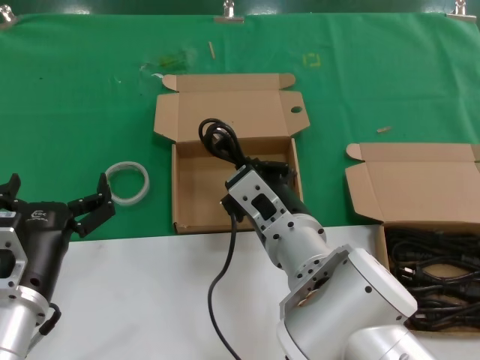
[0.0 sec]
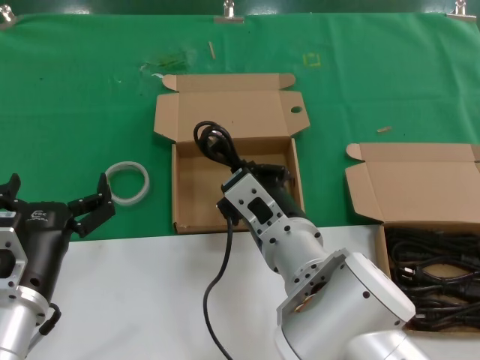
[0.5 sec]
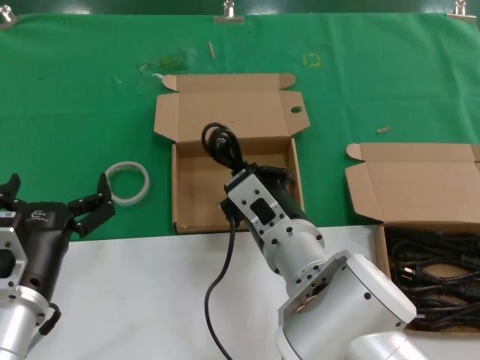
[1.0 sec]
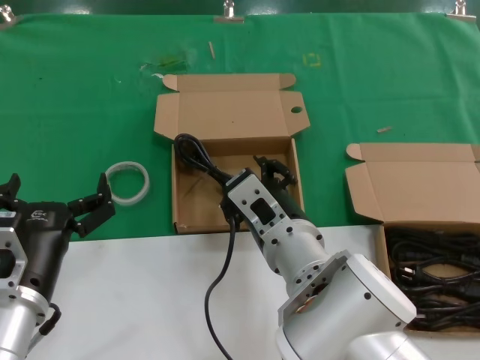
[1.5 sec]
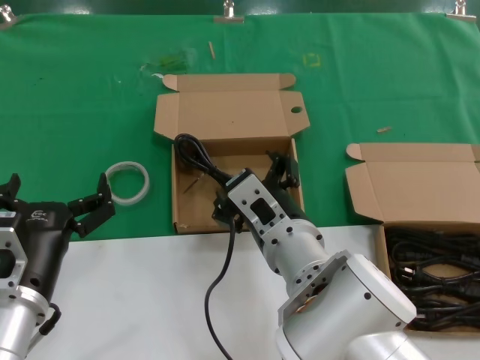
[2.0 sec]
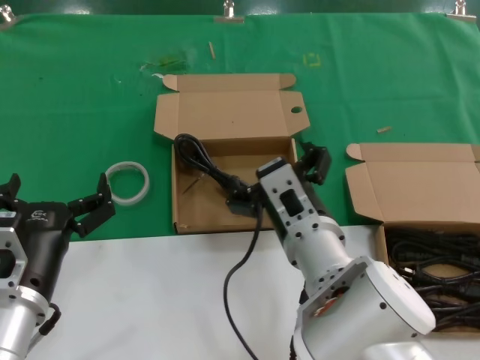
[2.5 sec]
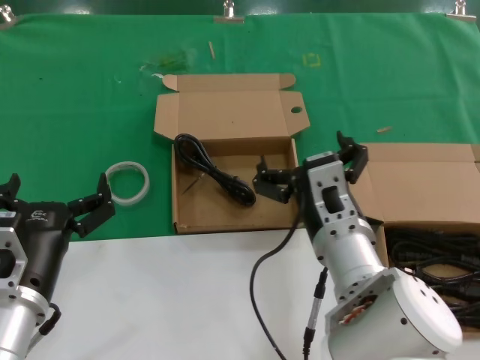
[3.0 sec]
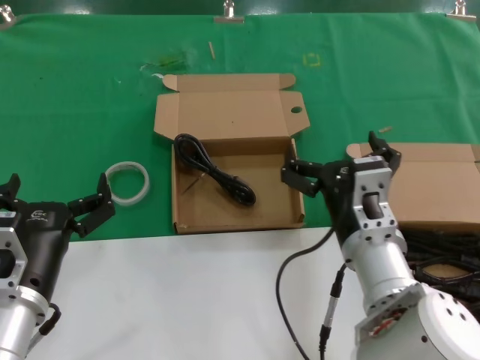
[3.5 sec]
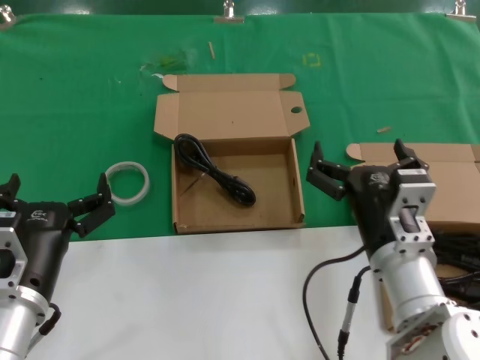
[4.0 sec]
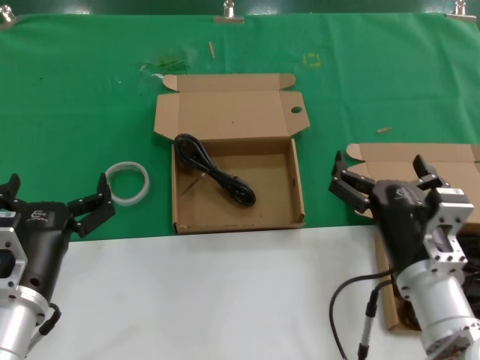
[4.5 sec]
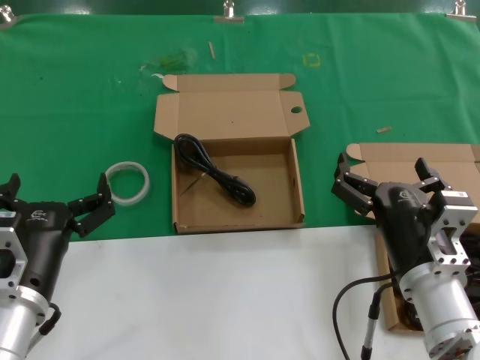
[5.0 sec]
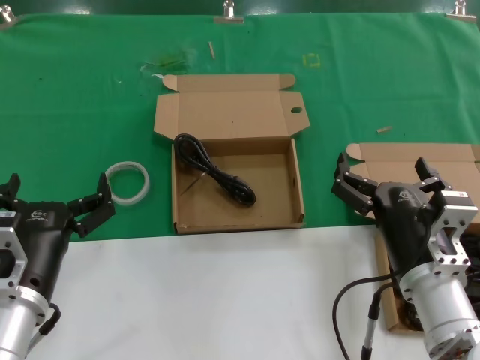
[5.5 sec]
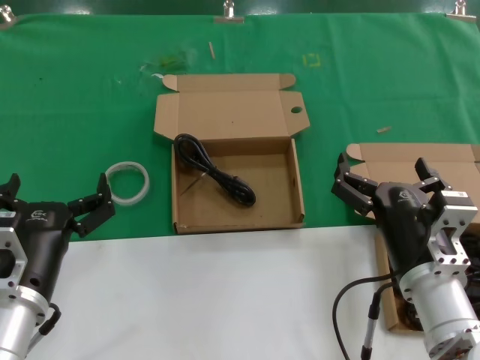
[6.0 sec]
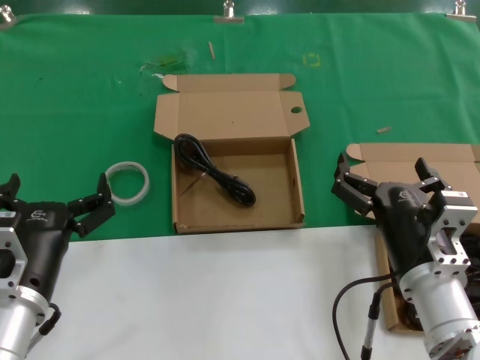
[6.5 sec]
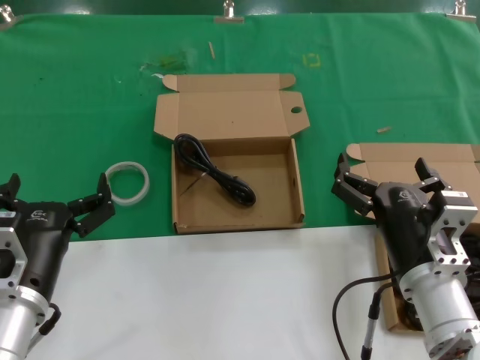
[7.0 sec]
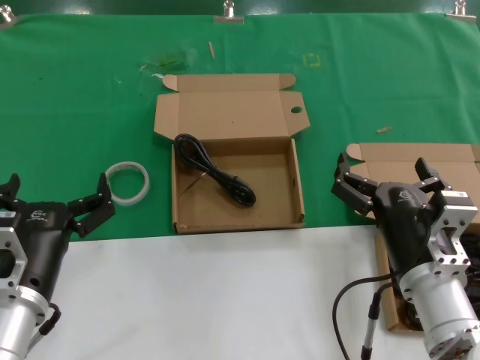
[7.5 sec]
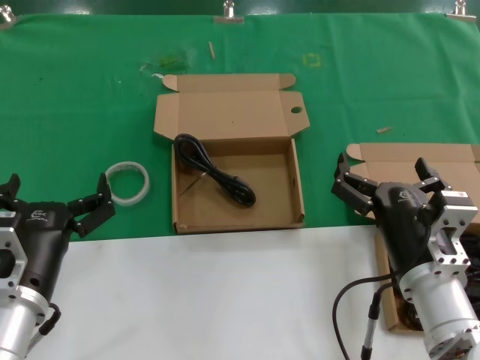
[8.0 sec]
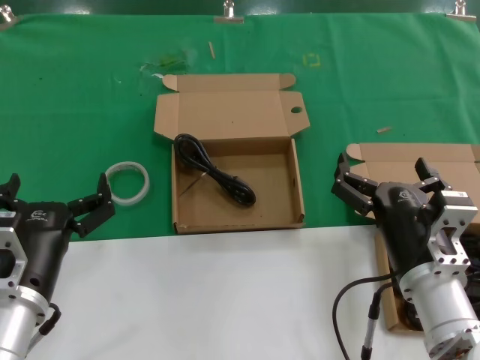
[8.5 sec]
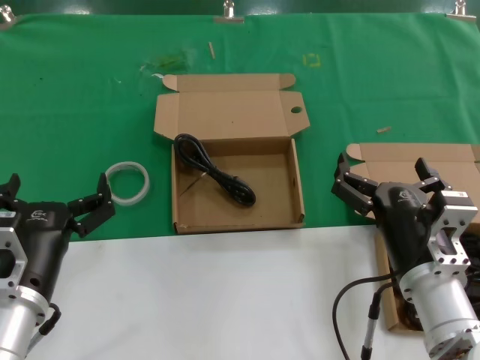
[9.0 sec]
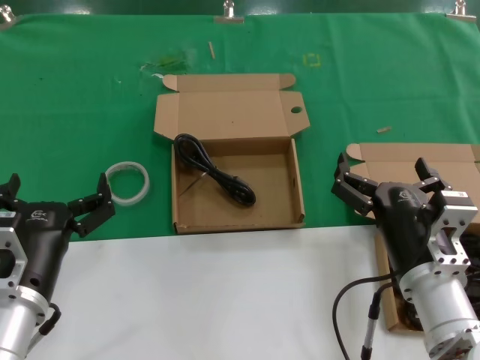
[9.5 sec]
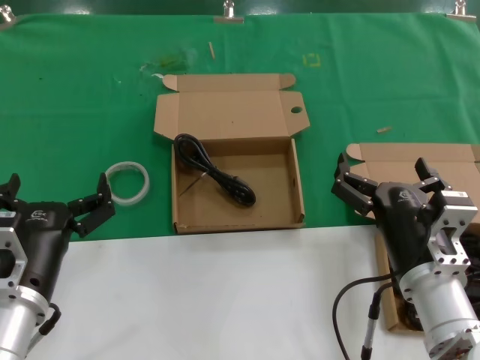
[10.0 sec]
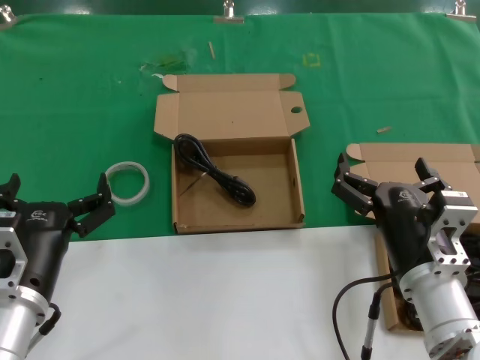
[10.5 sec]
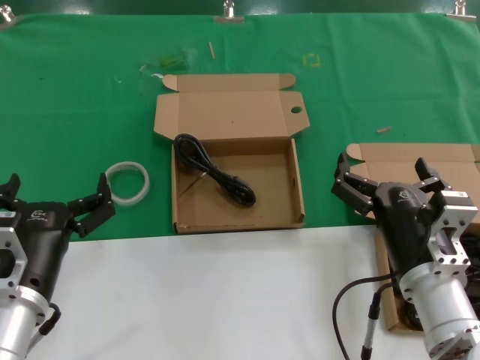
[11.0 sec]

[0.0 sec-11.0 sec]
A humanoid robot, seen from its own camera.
Task of the whole recording: take the parts from the box containing them and put them into an empty box.
0.0 sec to 2.0 sec: The two hands keep their place.
2.0 sec to 3.5 sec: The right hand moves to the right, about 10 cm.
3.5 sec to 5.5 sec: The right hand is displaced to the right by about 5 cm.
5.5 sec to 11.0 sec: The two hands keep their place.

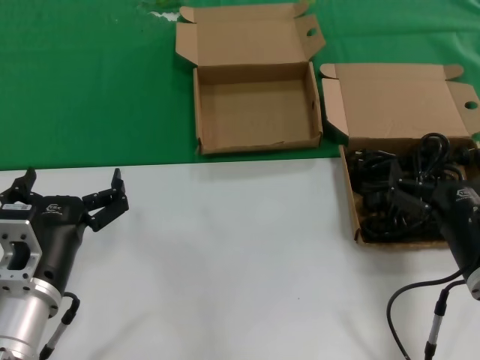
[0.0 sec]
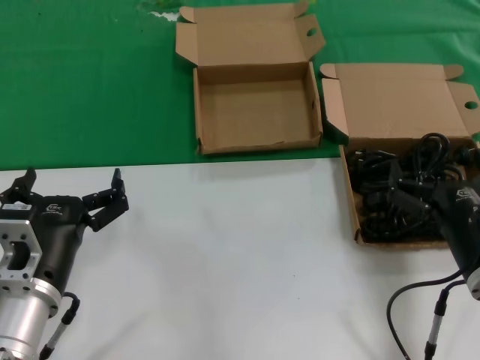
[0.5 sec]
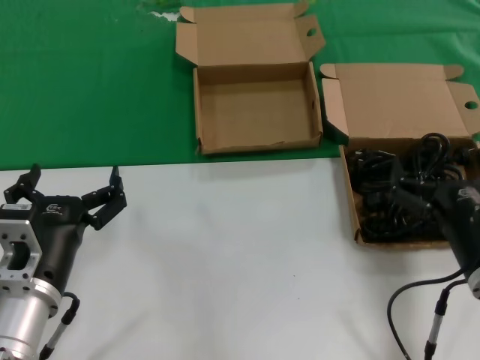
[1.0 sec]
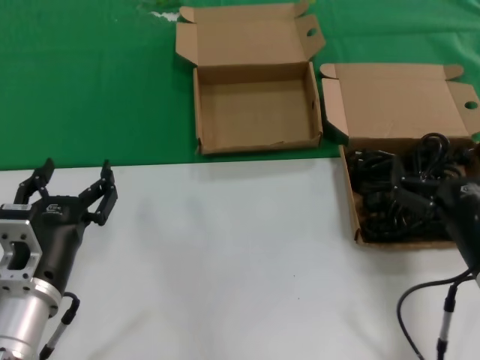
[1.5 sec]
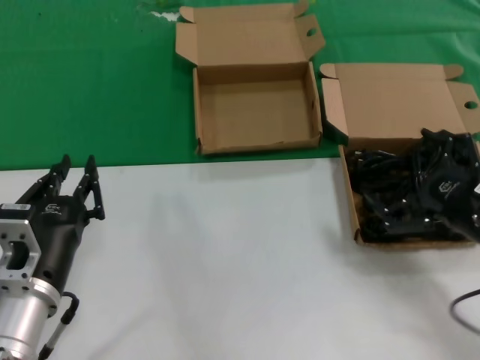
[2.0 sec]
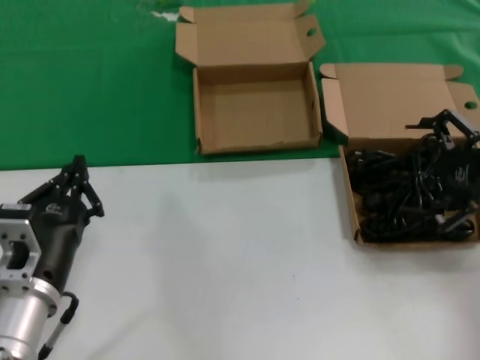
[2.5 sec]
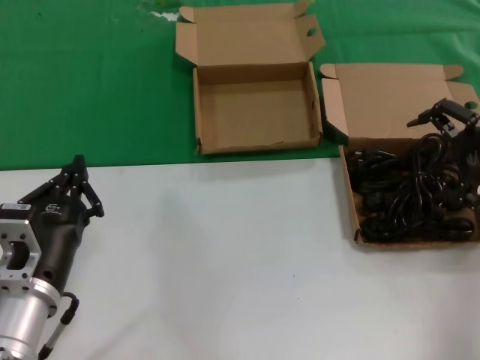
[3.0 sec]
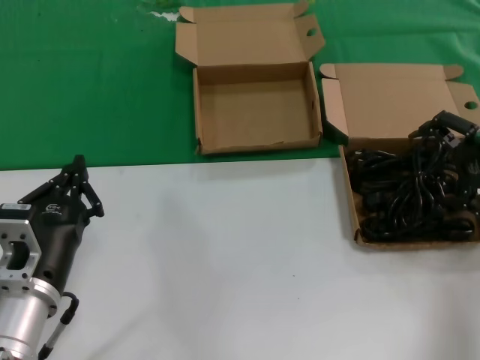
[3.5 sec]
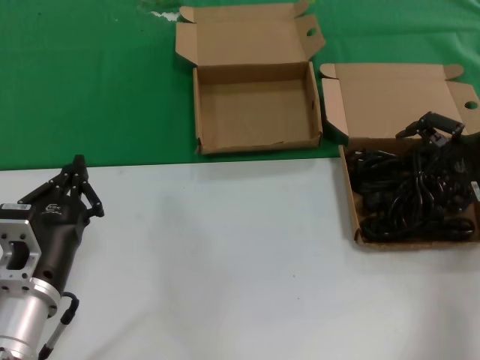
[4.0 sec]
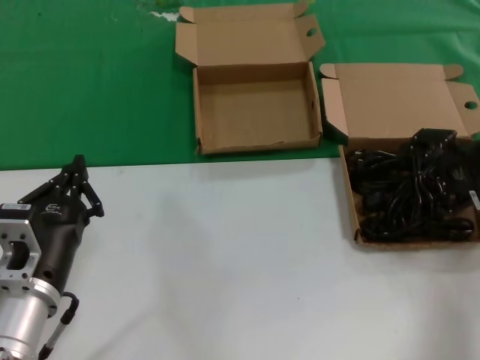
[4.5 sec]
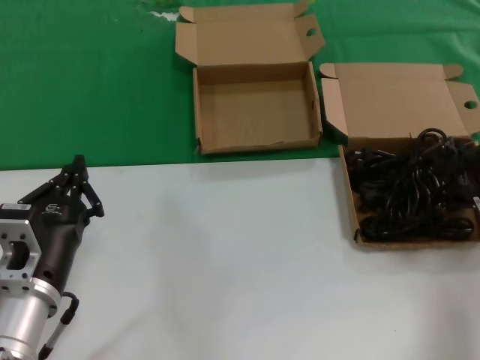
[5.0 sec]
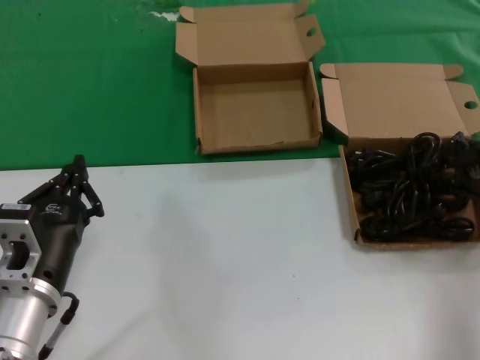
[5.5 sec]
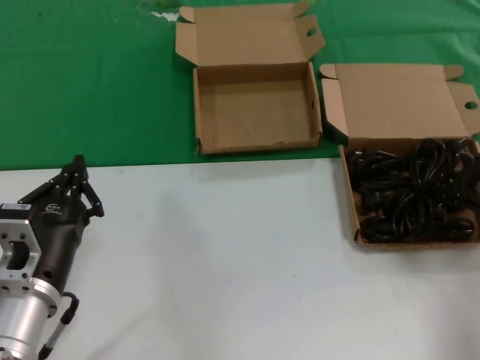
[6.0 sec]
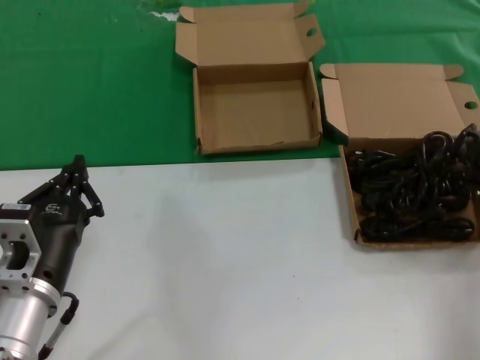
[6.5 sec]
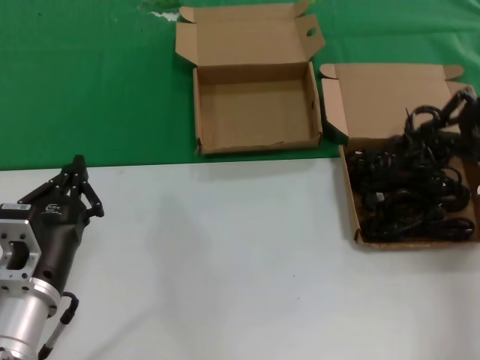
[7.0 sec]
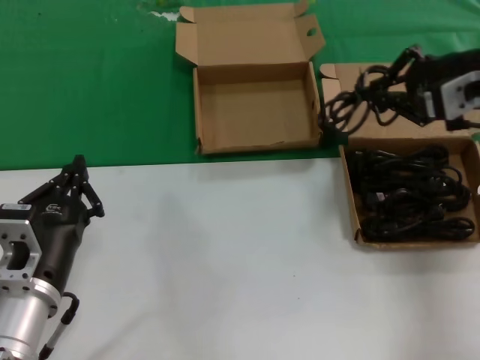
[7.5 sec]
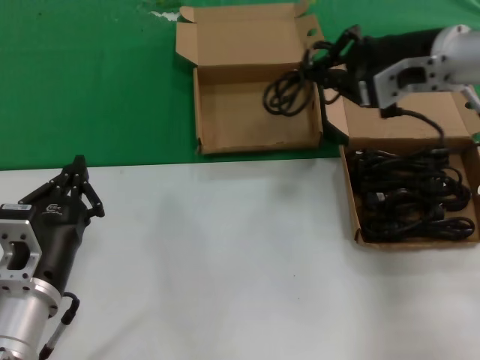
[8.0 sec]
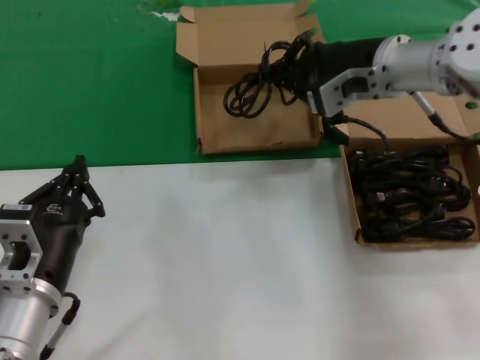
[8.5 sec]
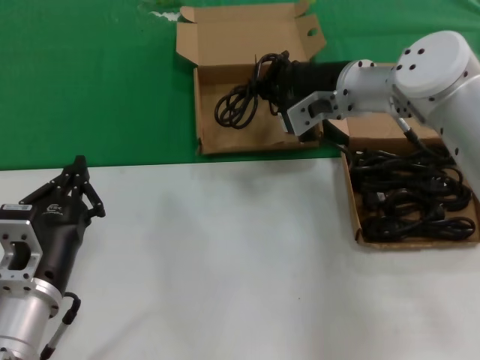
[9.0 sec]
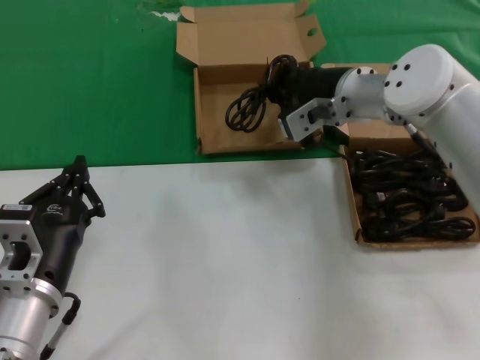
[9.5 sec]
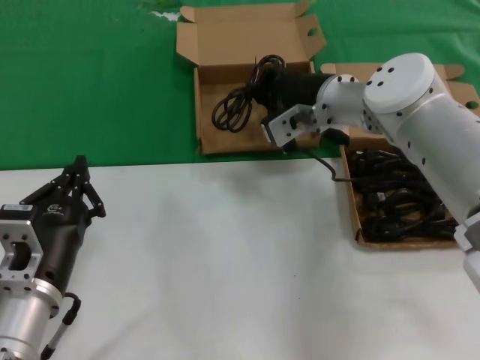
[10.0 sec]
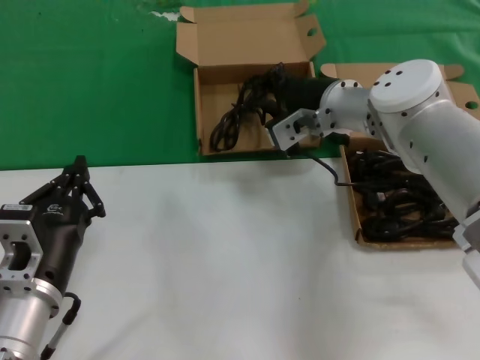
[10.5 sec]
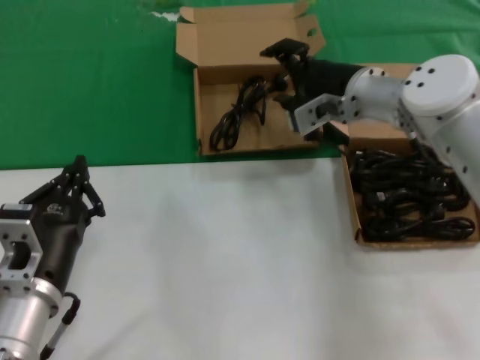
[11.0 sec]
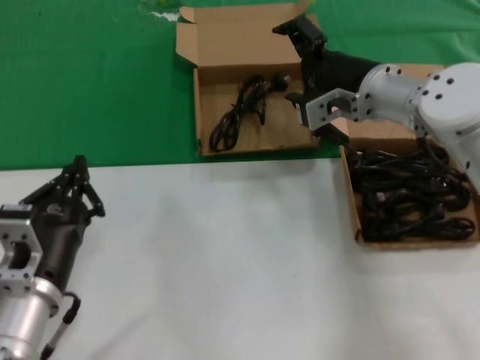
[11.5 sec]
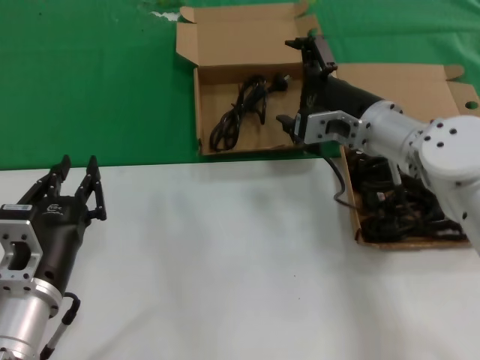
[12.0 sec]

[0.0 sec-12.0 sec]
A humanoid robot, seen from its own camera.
Task of the whole recording: take the parts from the box containing them and put them into an empty box.
Step, 0.0 sec to 5.0 sec: Grasp the data cable.
Step, 5.5 sec to 10.5 sec: Place the data cable in the another box.
0.0 sec to 2.0 sec: The right hand goes about 5 cm to the right.
2.0 sec to 4.0 sec: The right hand travels forward, upward and to the right by approximately 20 cm.
4.0 sec to 6.0 sec: The hands stay close to where they were, moving slightly.
6.0 sec to 8.0 sec: The right hand heads to the left and upward, covering some 20 cm.
8.0 sec to 10.0 sec: The right hand is displaced to the left, downward and forward by roughly 15 cm.
10.0 sec to 12.0 sec: The right hand ends up approximately 5 cm from where it was.

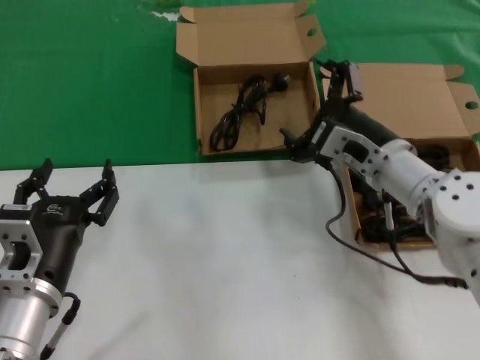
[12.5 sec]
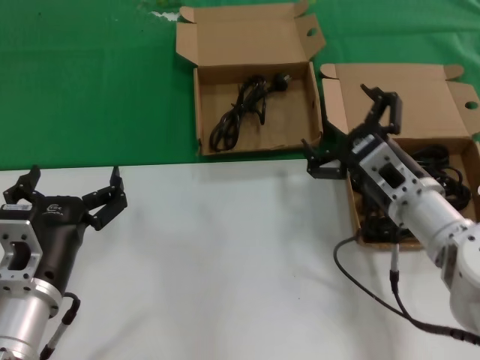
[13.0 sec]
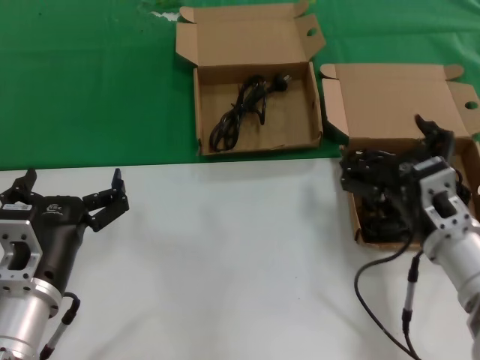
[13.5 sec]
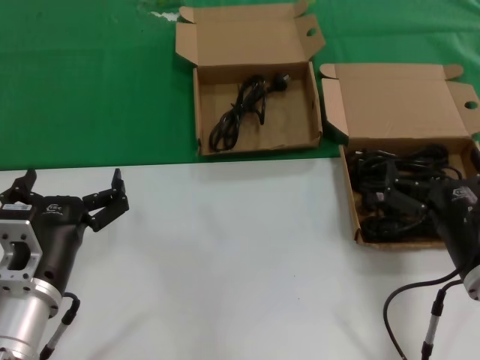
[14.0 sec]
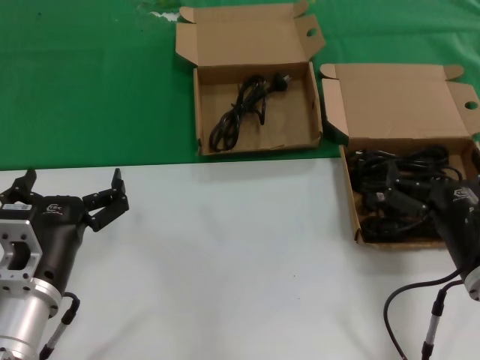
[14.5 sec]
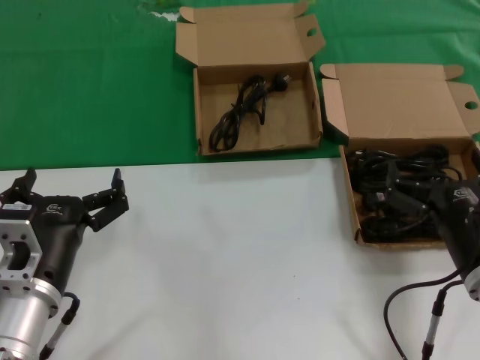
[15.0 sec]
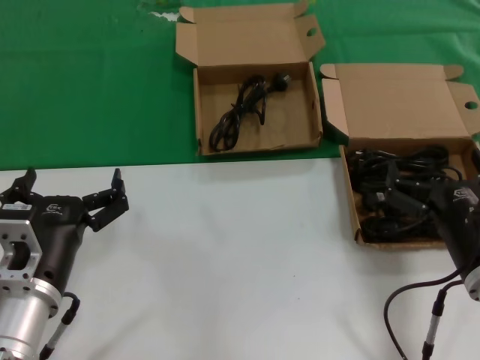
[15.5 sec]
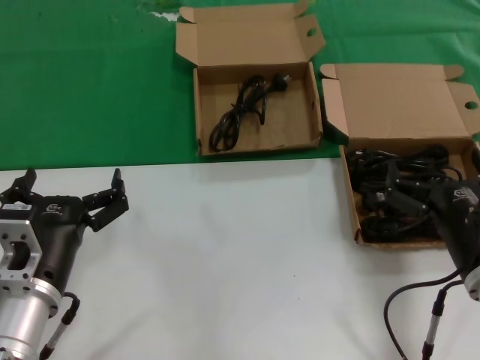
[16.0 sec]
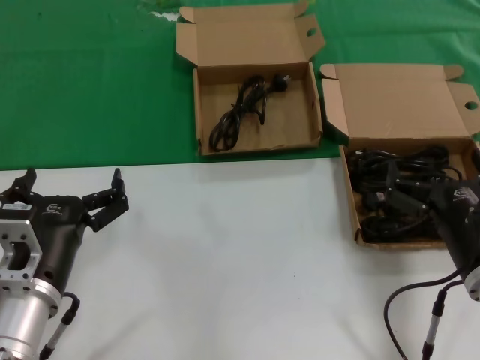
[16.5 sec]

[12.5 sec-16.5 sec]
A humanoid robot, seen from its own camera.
Task of the whole recording: take the parts from the box containing them and put them into an empty box.
12.5 sec to 14.5 sec: The right hand shifts approximately 15 cm backward and to the right.
14.5 sec to 16.5 sec: Neither hand changes place.
